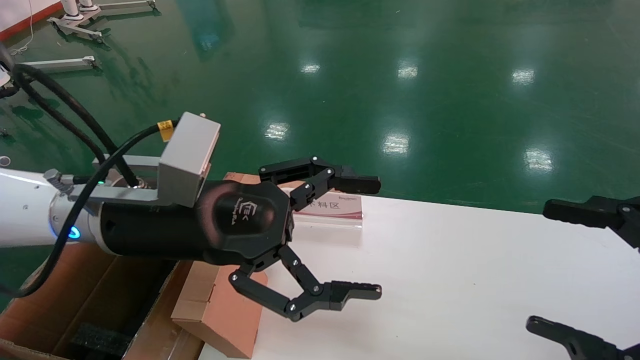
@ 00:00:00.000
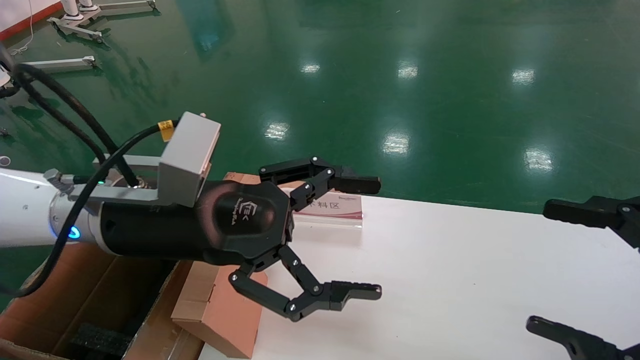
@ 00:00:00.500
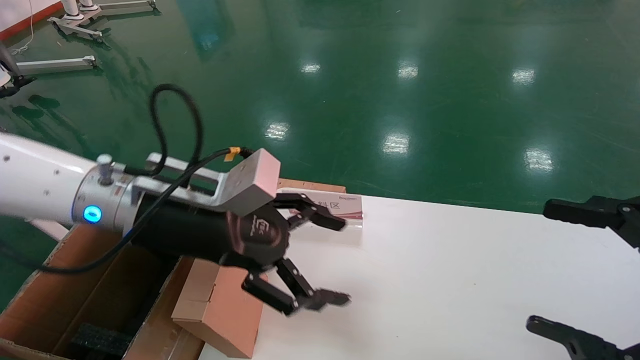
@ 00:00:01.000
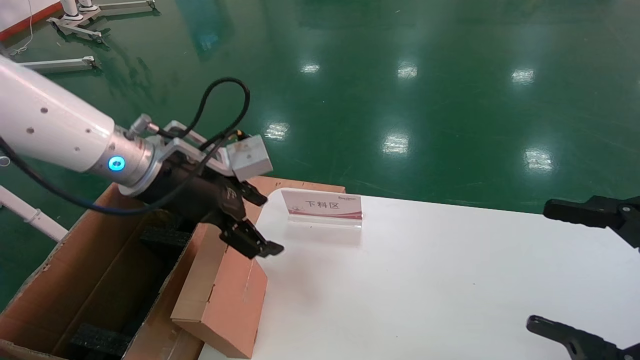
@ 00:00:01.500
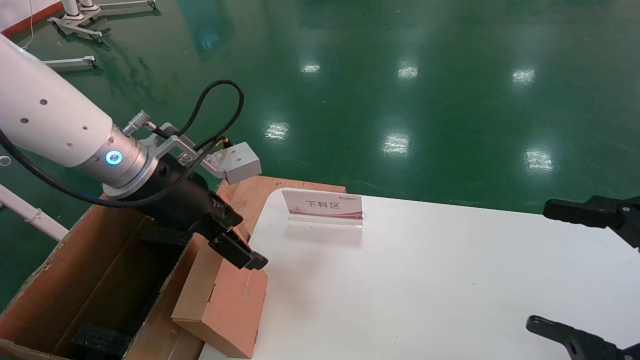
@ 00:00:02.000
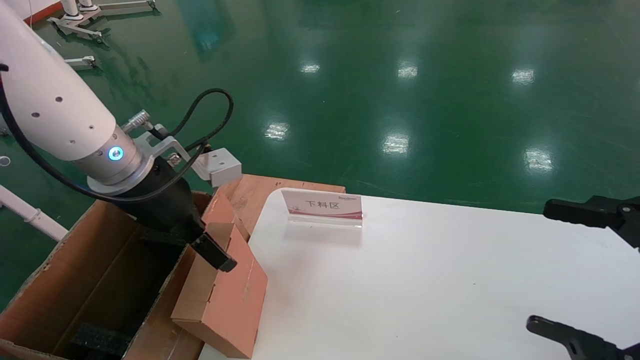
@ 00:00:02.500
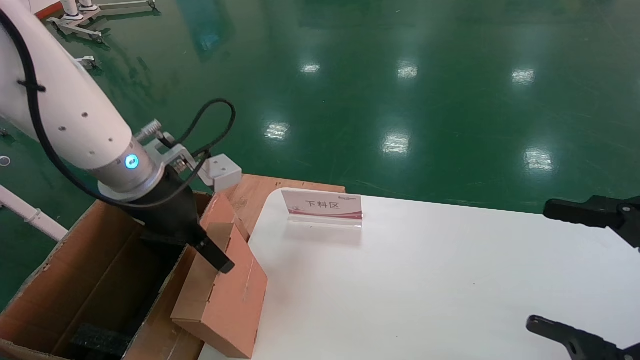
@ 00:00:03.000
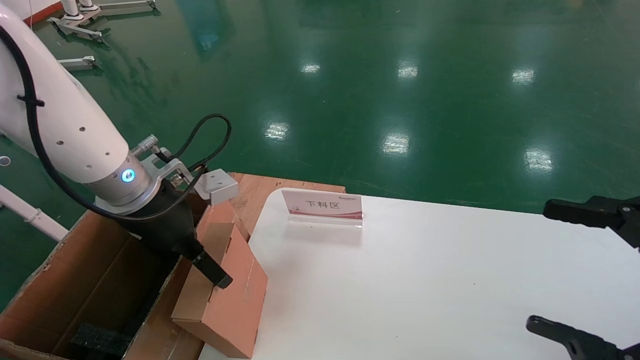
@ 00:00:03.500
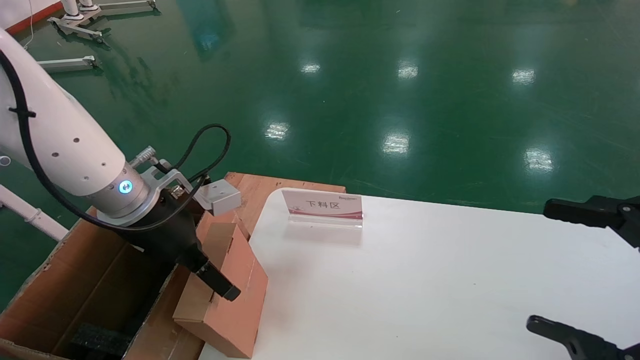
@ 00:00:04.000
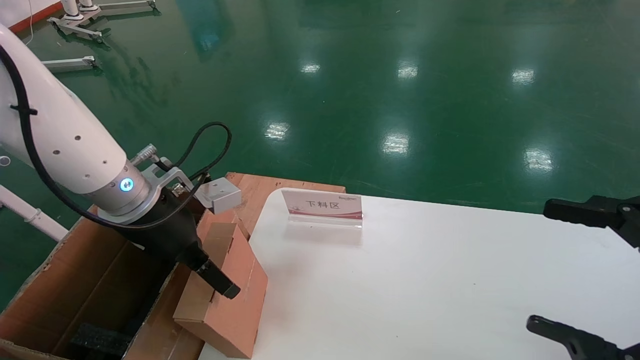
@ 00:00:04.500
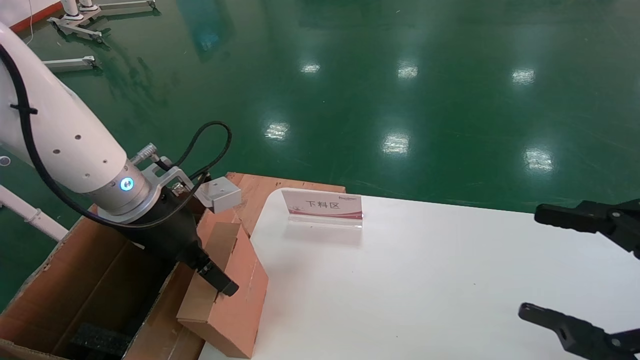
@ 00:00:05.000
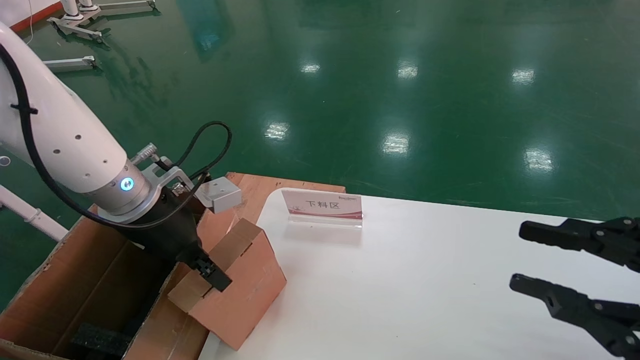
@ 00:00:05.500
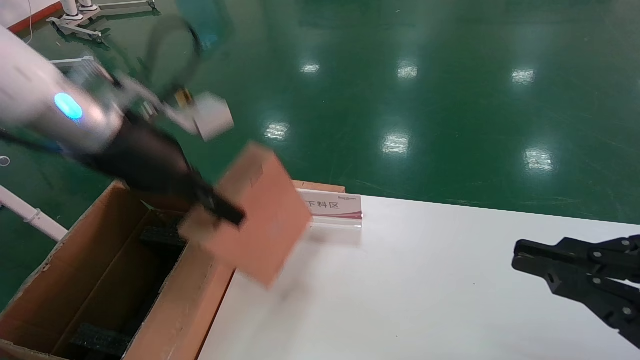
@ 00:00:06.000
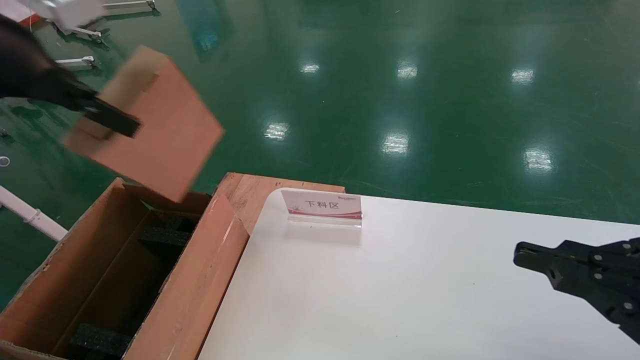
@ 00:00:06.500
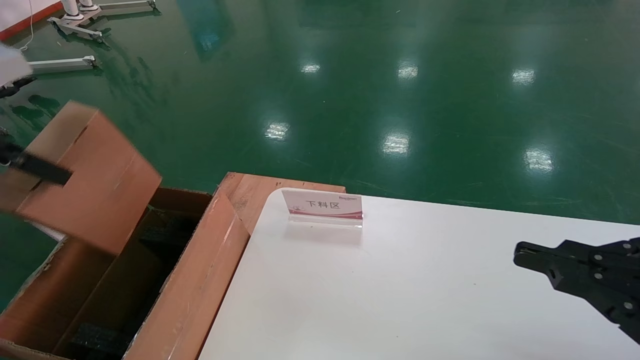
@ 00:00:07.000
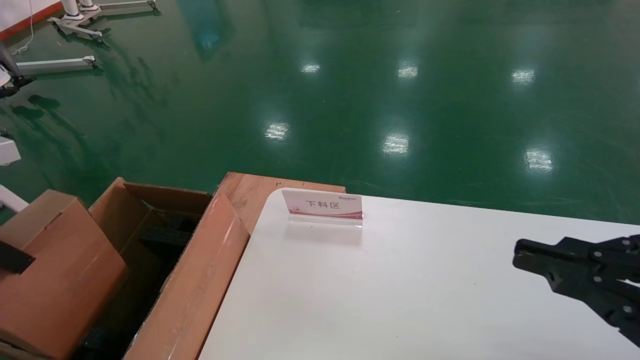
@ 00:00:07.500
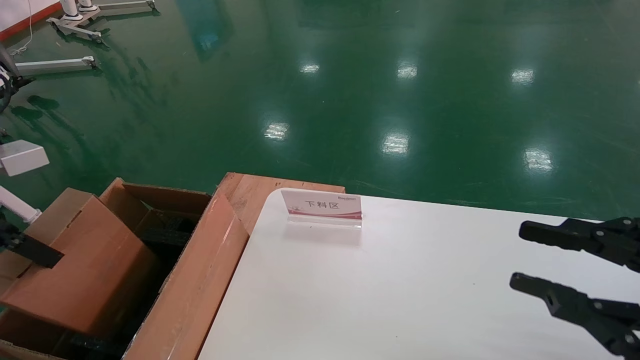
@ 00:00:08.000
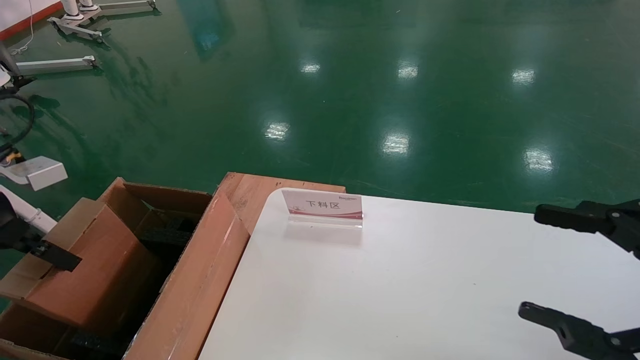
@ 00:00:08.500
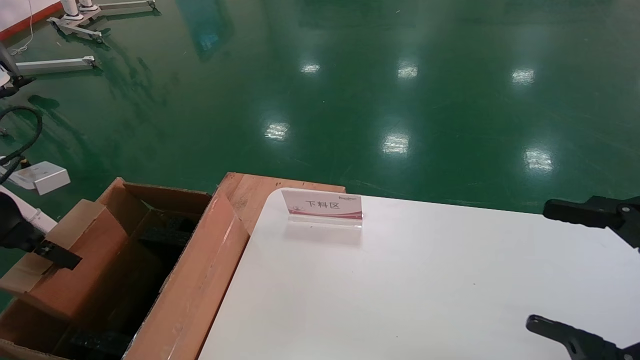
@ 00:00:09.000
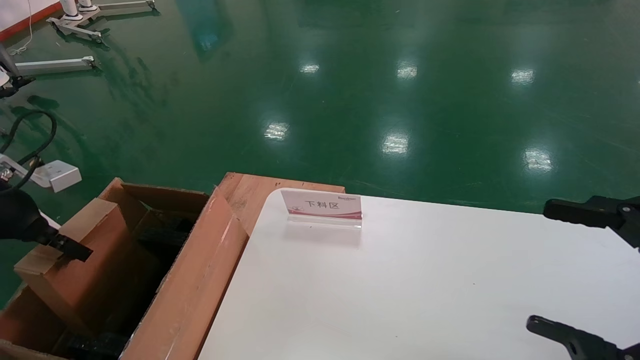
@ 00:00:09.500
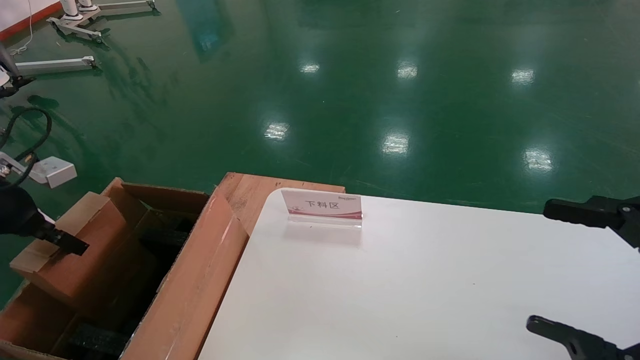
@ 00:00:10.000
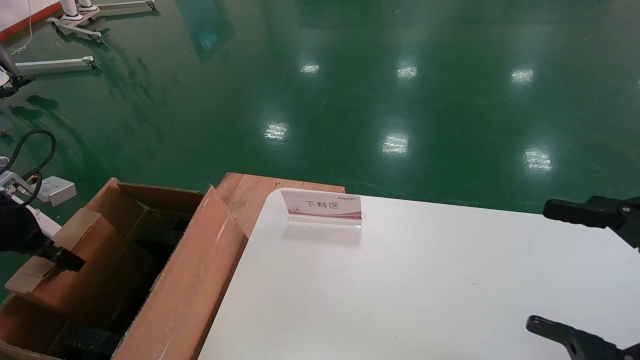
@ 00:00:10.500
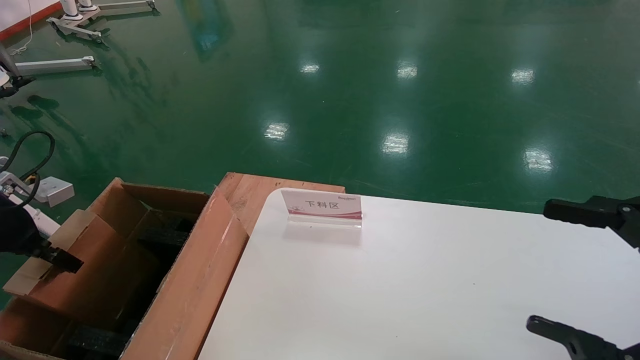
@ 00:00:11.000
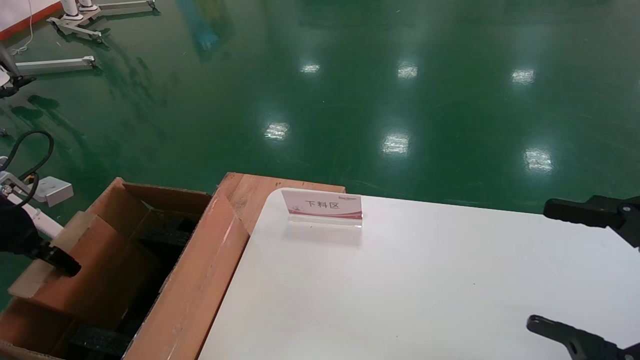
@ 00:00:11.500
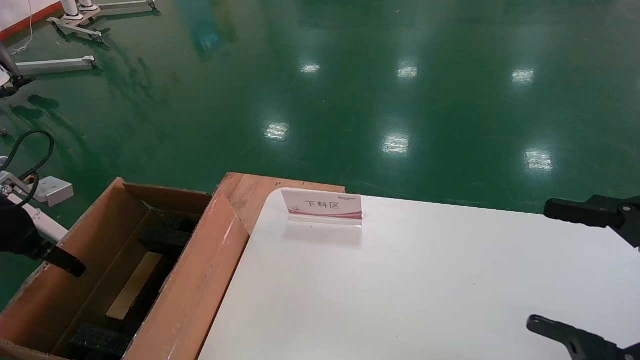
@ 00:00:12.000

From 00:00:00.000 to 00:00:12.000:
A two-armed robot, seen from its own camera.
Task of the whole recording: pick up the small cardboard box and load it into the large cardboard box.
Step, from 00:00:01.500 to 00:00:05.500: Pick up the mouse and power cord box.
From 00:00:00.000 to 00:00:02.000: The left gripper goes approximately 5 cm forward.
From 00:00:04.000 to 00:00:06.000: The left gripper goes about 10 cm upward, and closes up. The right gripper closes.
From 00:00:06.000 to 00:00:08.000: The left gripper moves to the left and backward, roughly 20 cm.
From 00:00:08.000 to 00:00:10.000: The right gripper opens up. The left gripper heads forward, downward and to the left, covering approximately 10 cm.
From 00:00:10.000 to 00:00:12.000: The left gripper opens up.

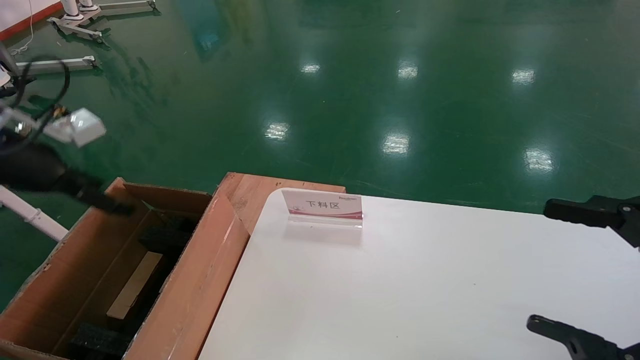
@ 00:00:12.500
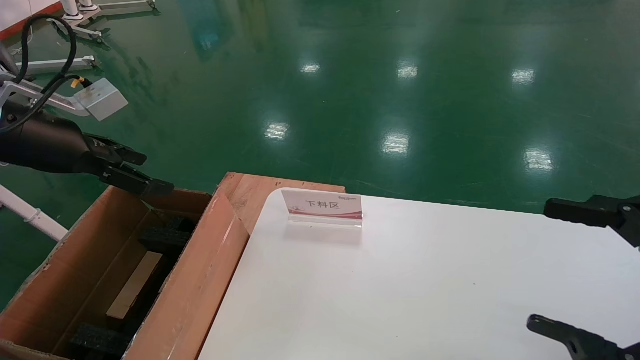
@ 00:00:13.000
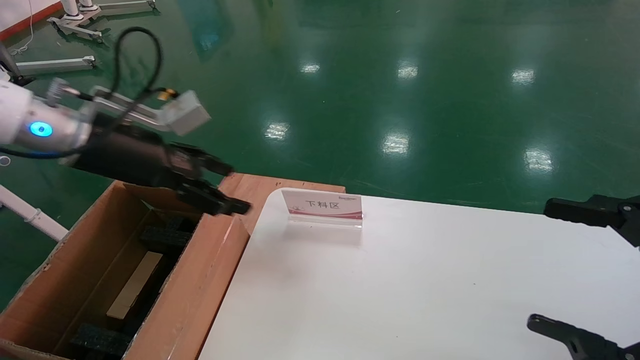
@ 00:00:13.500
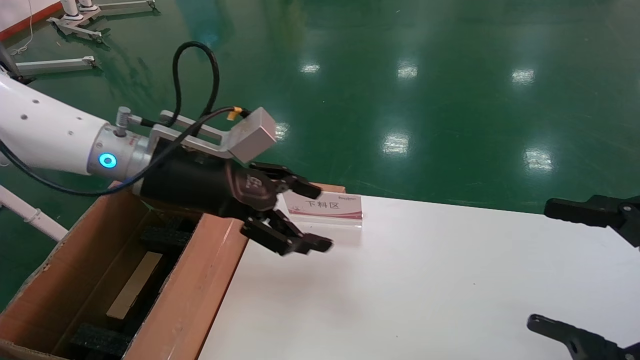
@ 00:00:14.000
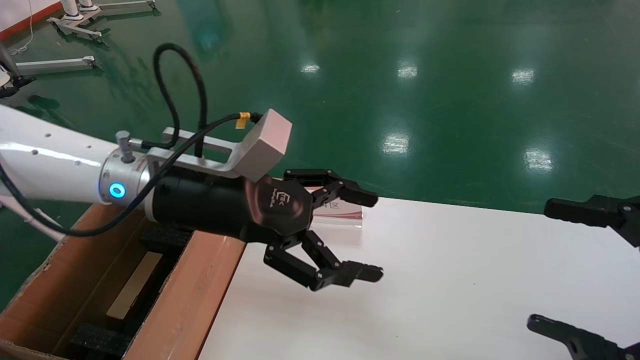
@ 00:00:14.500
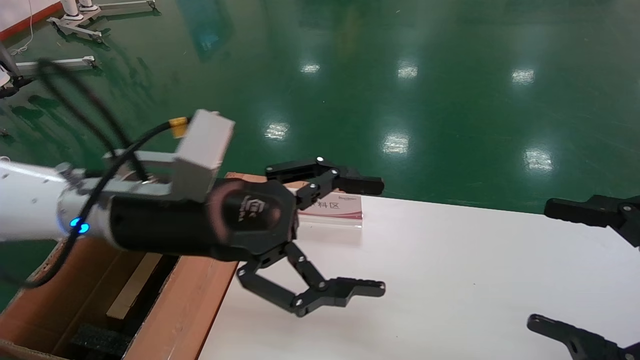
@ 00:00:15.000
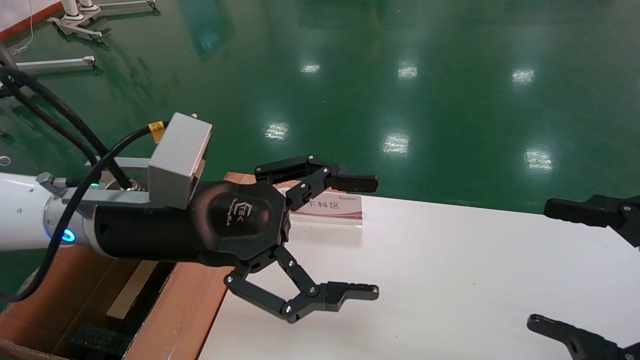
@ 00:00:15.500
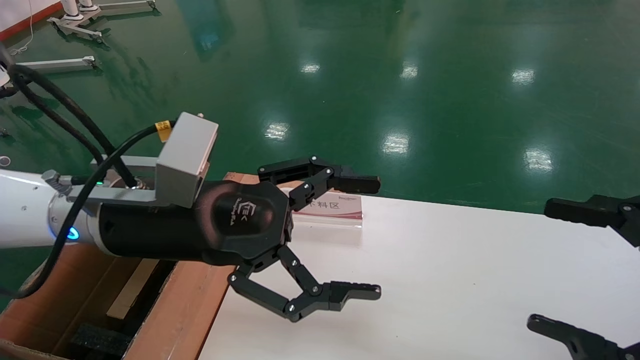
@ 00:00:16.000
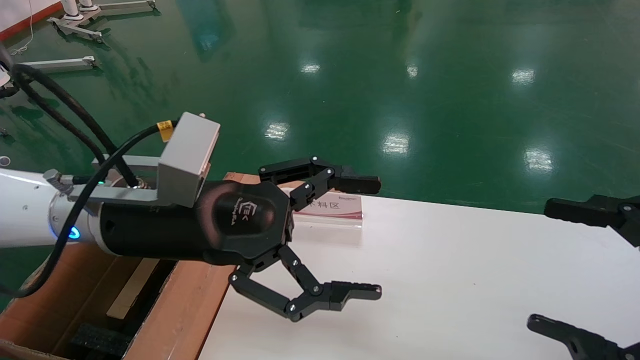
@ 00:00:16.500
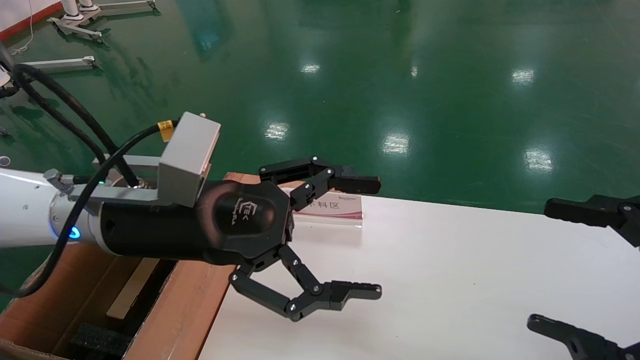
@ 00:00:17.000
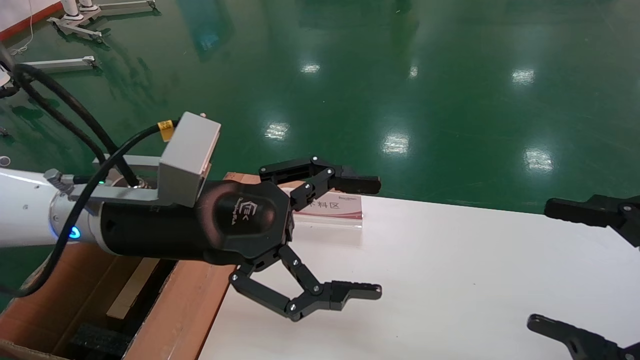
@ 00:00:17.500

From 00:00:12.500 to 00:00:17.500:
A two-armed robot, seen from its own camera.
Task of the whole recording: pick up the small cardboard box and load it into the large cardboard box.
From 00:00:12.500 to 00:00:15.000: The left gripper shifts about 30 cm to the right.
From 00:00:15.000 to 00:00:17.500: The two grippers keep their place.
